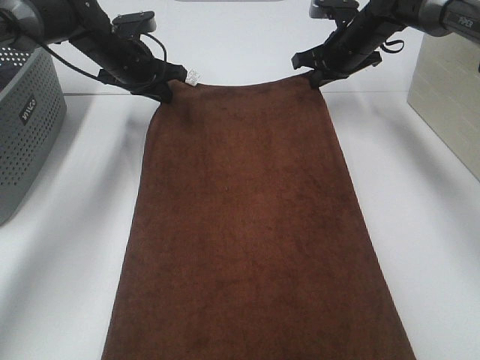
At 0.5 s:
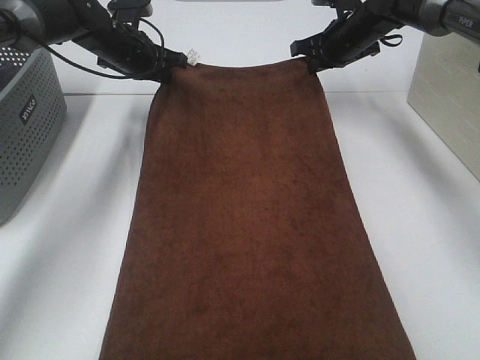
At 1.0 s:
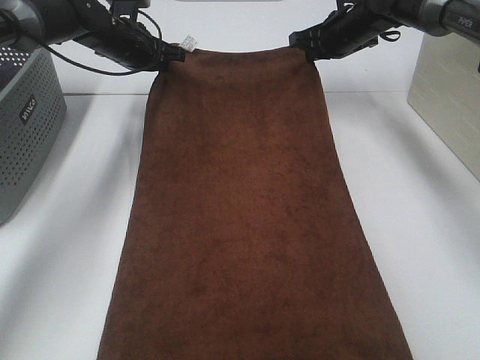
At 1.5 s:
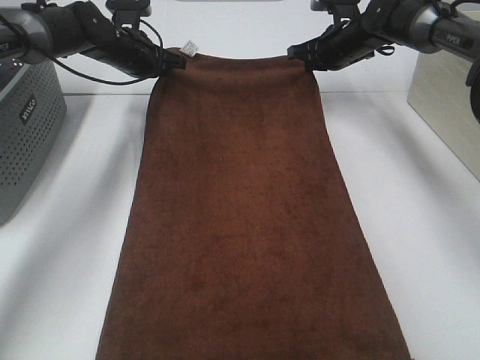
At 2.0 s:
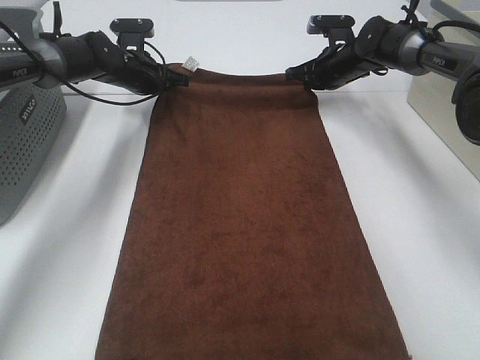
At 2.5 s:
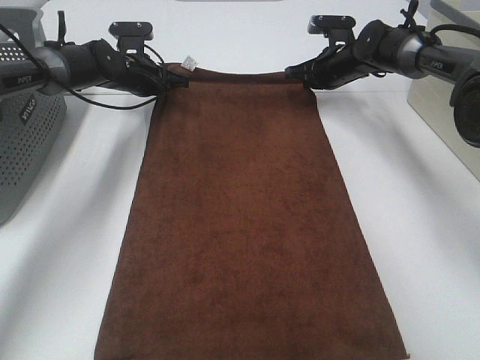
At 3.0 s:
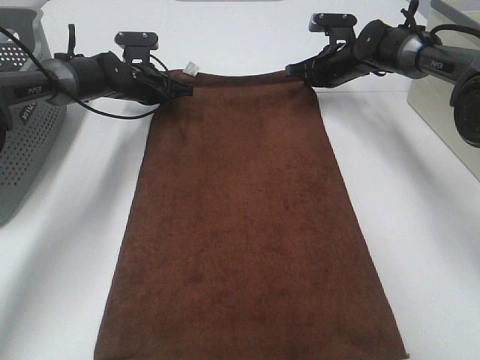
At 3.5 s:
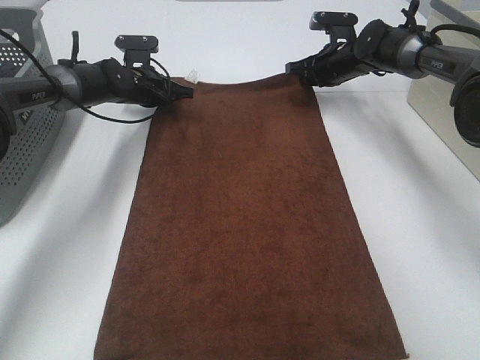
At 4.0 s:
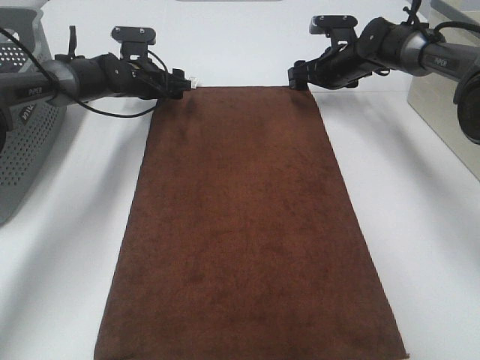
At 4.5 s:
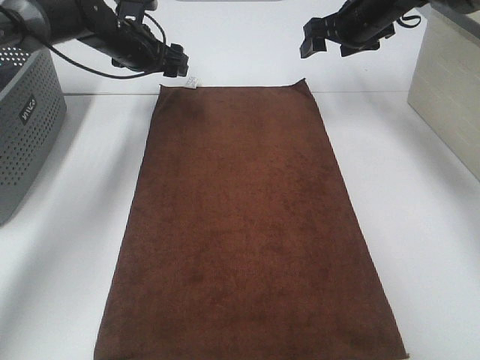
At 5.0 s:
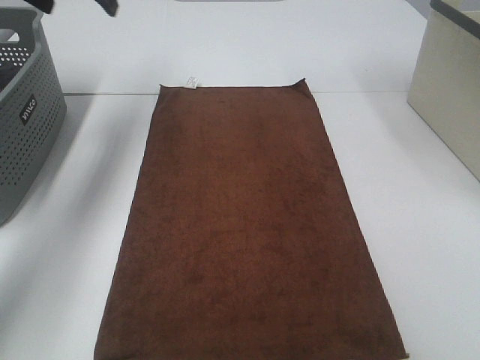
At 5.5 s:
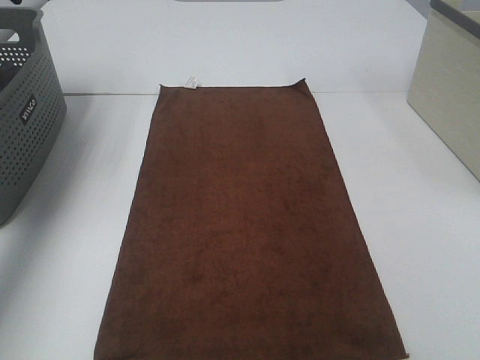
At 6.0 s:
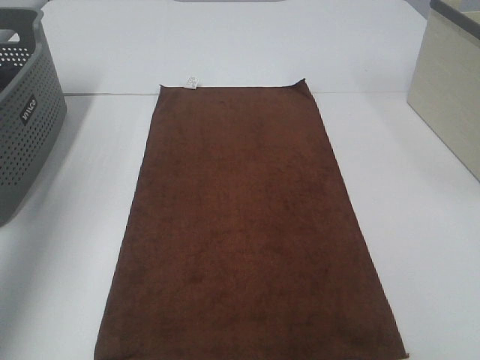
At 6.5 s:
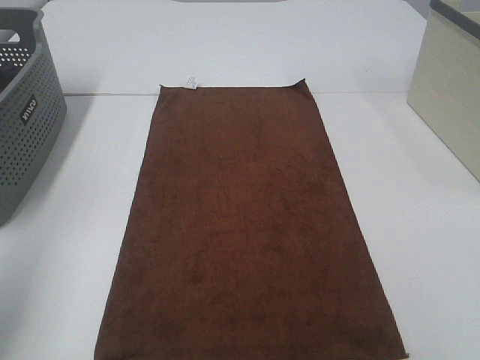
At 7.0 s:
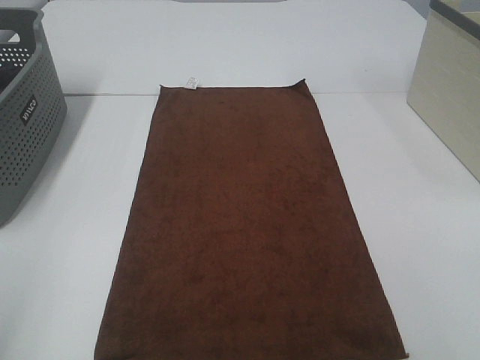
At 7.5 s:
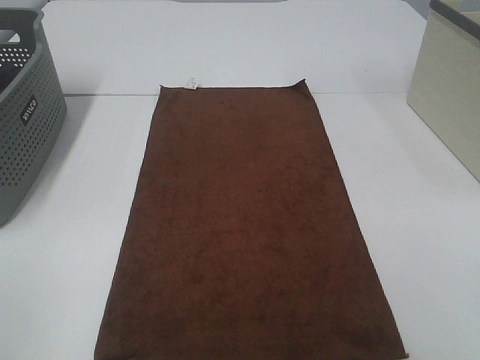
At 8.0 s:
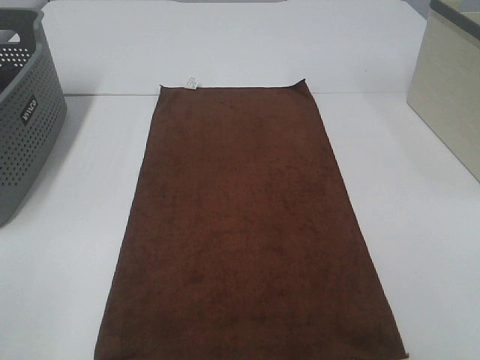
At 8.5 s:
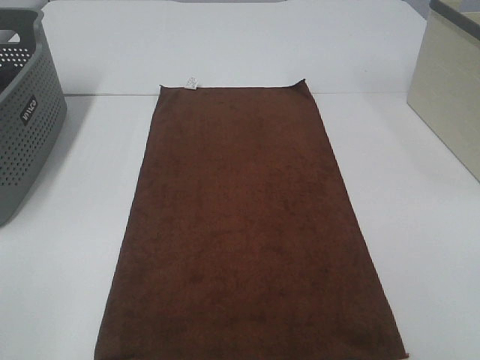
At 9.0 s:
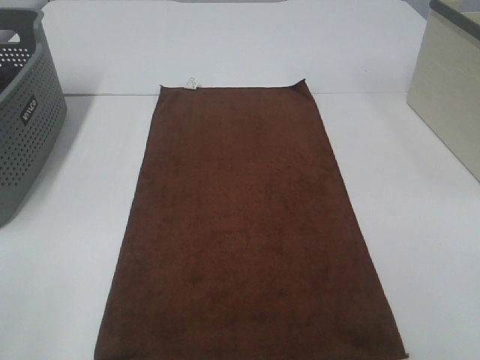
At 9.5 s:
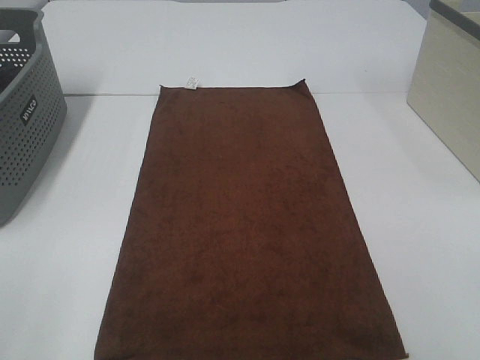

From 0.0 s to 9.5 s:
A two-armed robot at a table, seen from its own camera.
Task of the whole recording: Remove the towel and place it.
From 0.0 s to 2.0 s: The left gripper moves approximately 5 cm. The right gripper goes about 5 cm downward.
From 2.0 s to 4.0 s: The left gripper opens its fingers. The right gripper opens up.
From 4.0 s to 5.5 s: The left gripper travels upward, backward and to the left by roughly 35 cm, while the right gripper goes approximately 40 cm upward and backward.
From 5.5 s to 7.5 s: The left gripper is displaced backward by roughly 40 cm.

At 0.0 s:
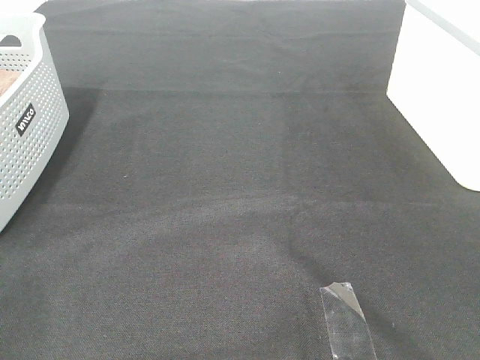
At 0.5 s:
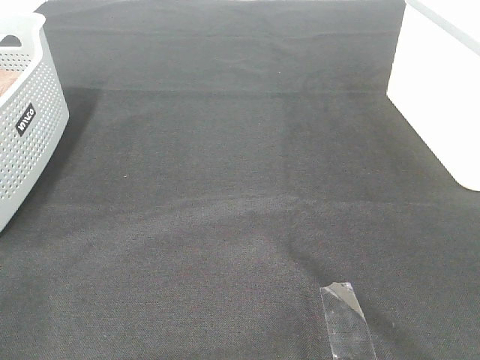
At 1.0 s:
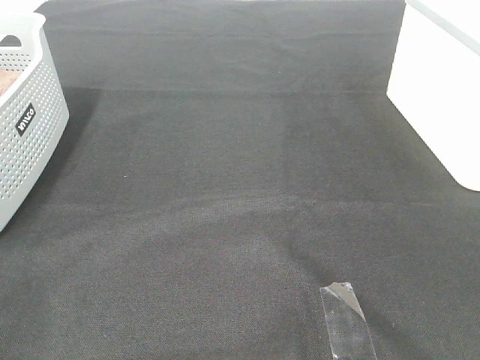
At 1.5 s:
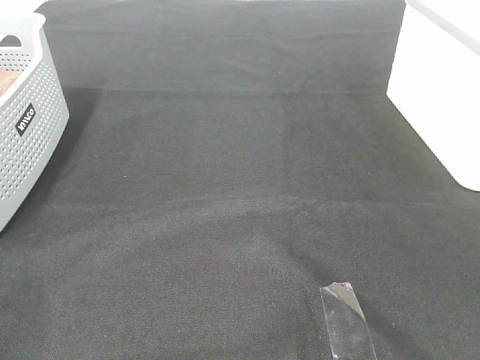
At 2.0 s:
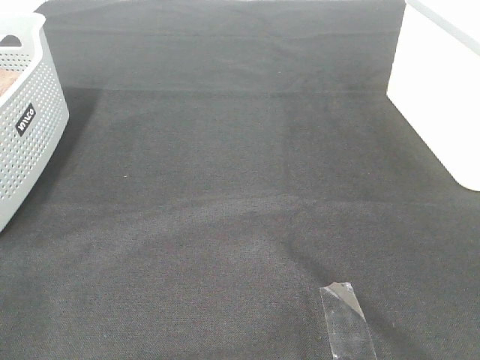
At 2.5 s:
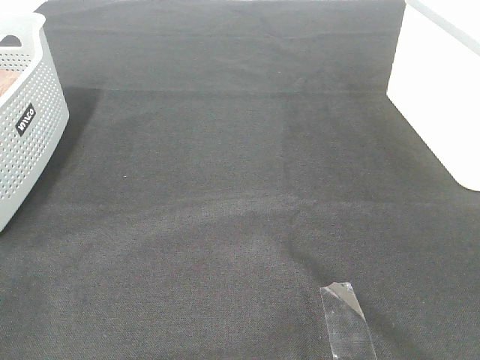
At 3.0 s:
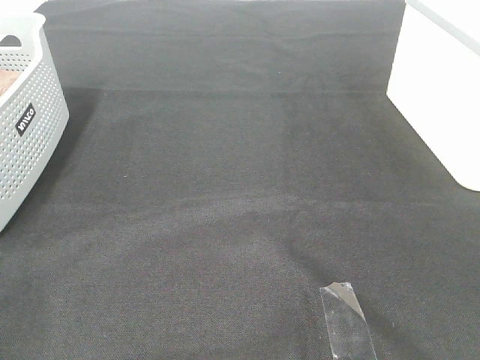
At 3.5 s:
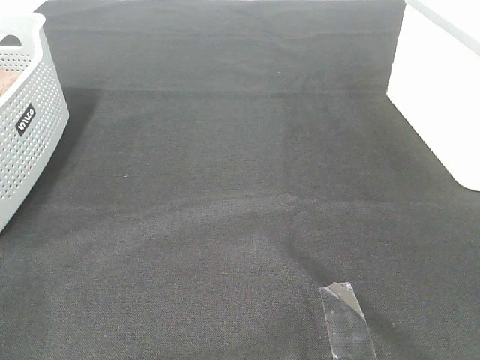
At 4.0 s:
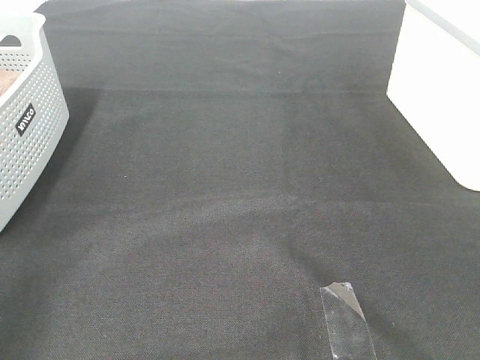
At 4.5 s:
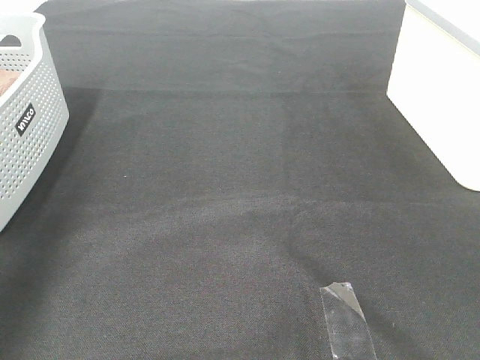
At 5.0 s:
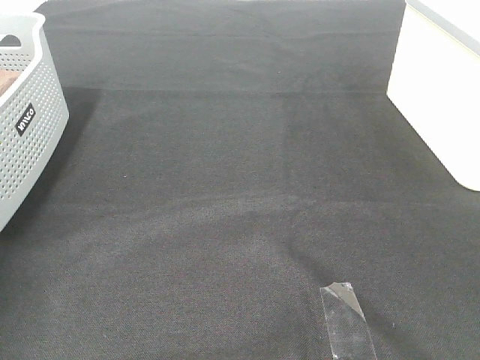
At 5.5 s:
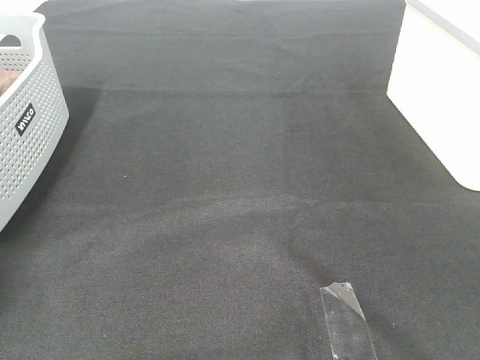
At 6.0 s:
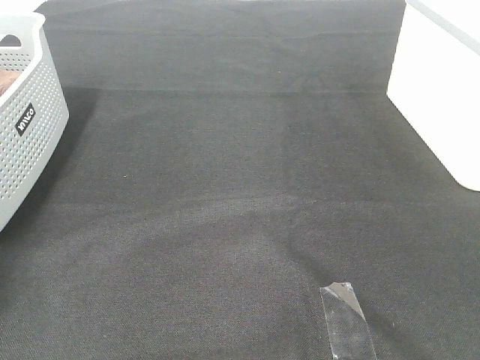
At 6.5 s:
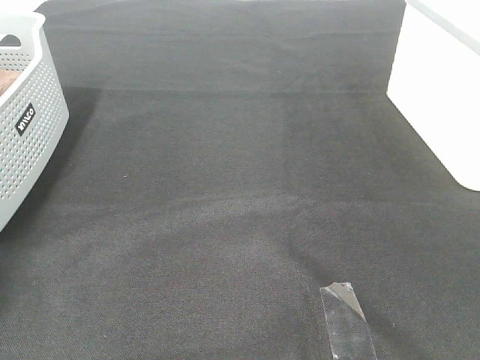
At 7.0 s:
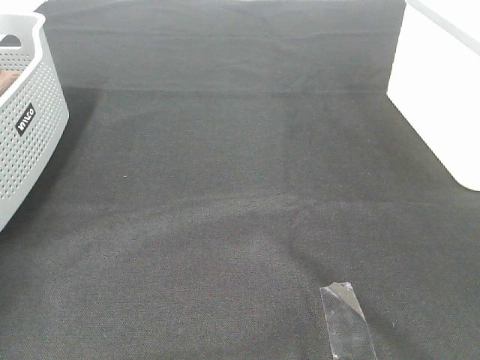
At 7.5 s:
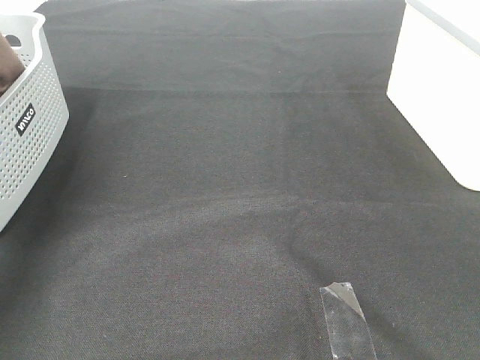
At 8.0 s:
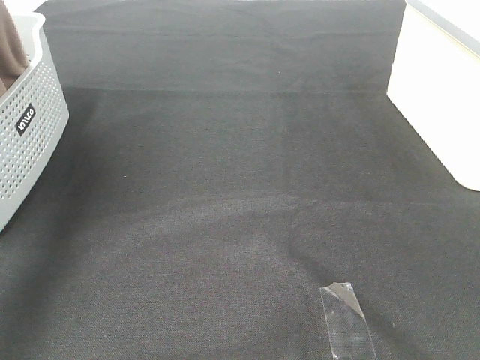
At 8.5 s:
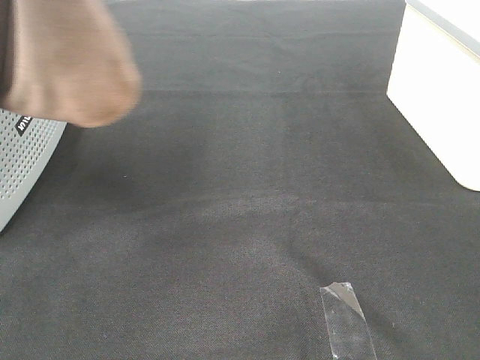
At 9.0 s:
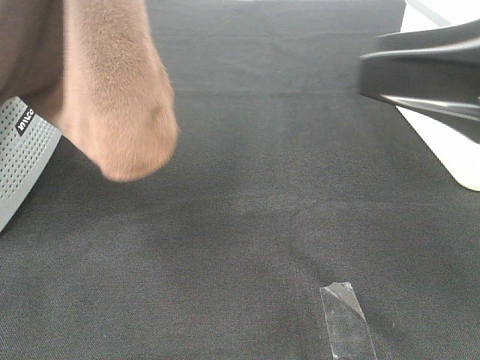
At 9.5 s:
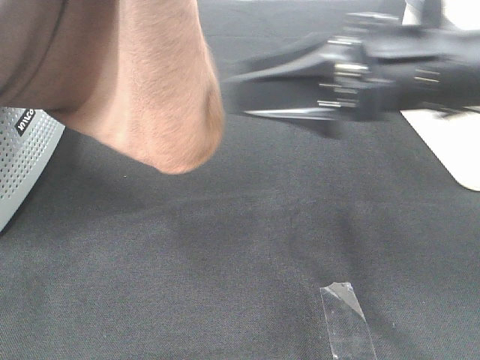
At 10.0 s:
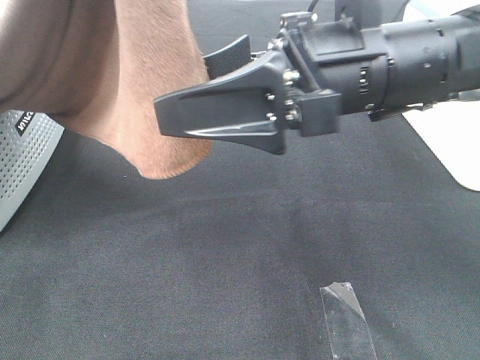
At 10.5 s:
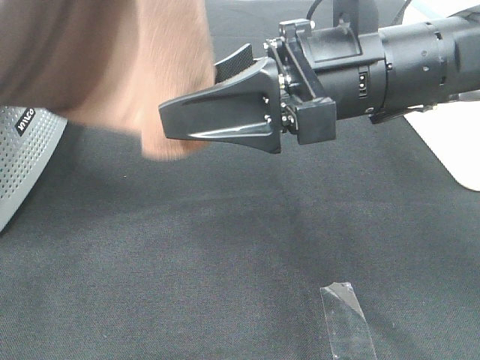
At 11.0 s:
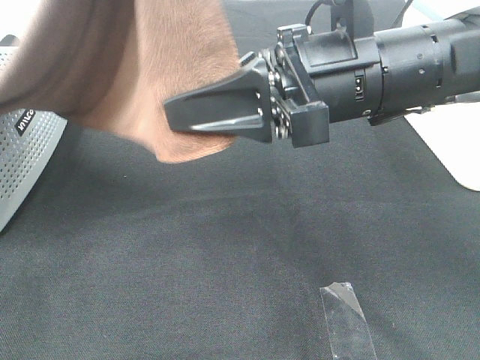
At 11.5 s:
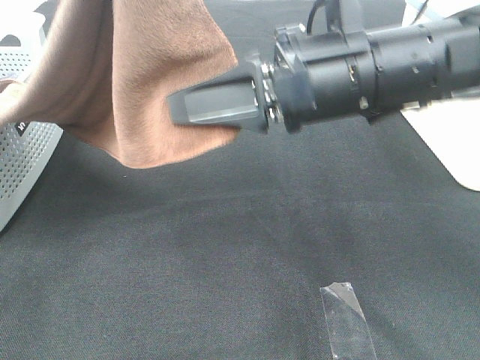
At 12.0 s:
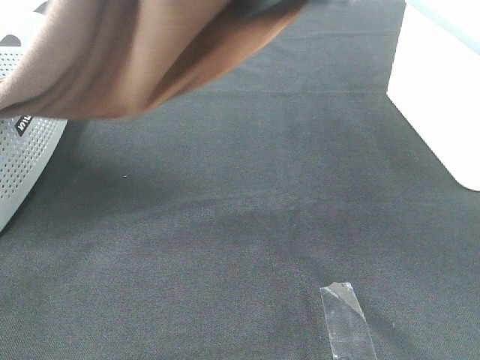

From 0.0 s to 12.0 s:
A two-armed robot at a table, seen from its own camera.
Task of the whole recording: Remove the towel and place it.
Step, from 8.0 s to 11.0 s: Right hand: grab a corner of the brown towel and straighten it.
From 0.0 s to 2.0 s: Both grippers stay about where they are.
From 4.0 s to 6.0 s: The left gripper shifts some 40 cm forward and downward, and closes its fingers.
From 6.0 s to 8.0 s: The left gripper moves upward, to the right and backward, roughly 35 cm.
From 8.0 s to 10.0 s: The right gripper moves forward and to the left, about 30 cm. Meanwhile the left gripper moves to the right and backward, some 20 cm.
From 10.0 s to 12.0 s: The right gripper shifts roughly 10 cm upward, and closes up.

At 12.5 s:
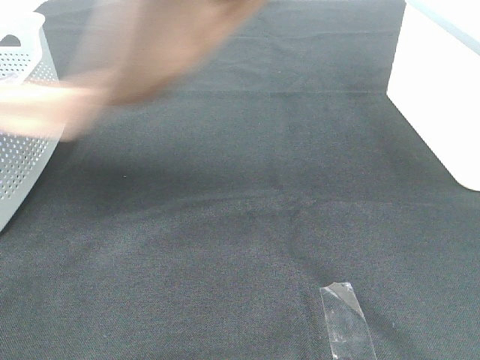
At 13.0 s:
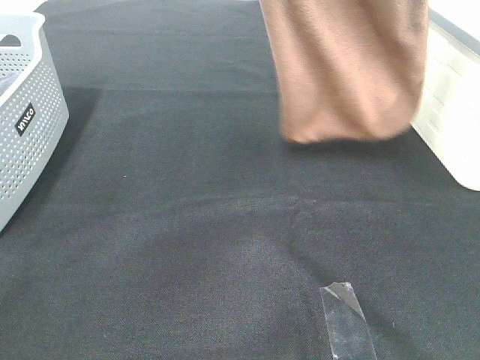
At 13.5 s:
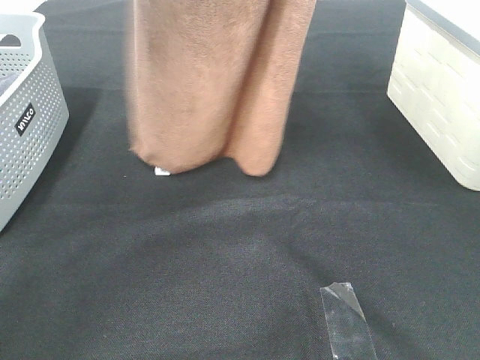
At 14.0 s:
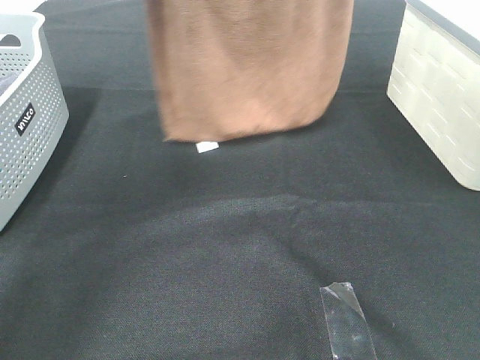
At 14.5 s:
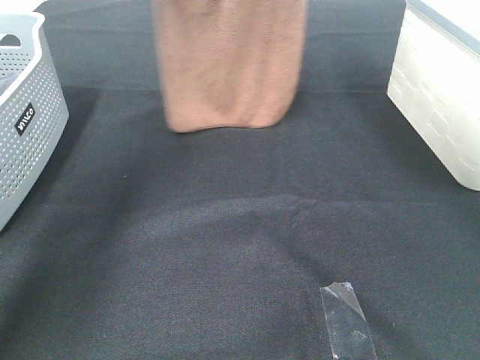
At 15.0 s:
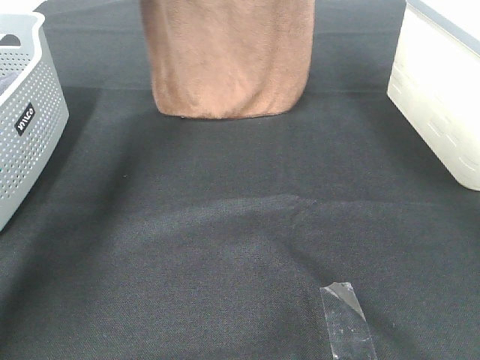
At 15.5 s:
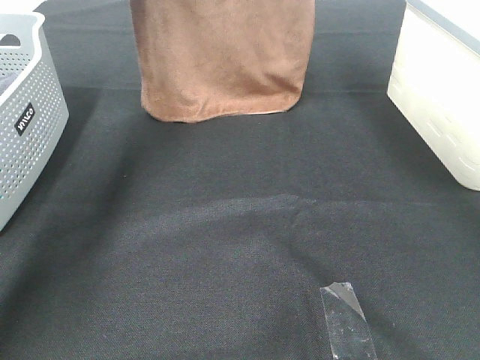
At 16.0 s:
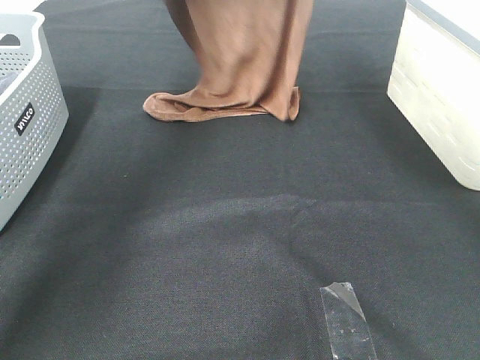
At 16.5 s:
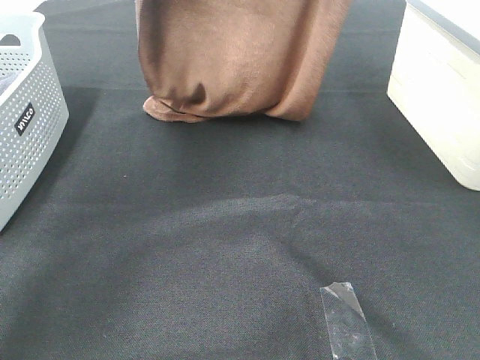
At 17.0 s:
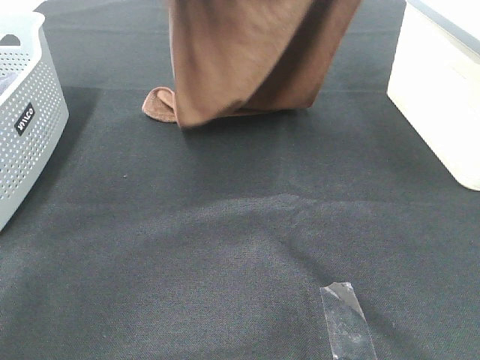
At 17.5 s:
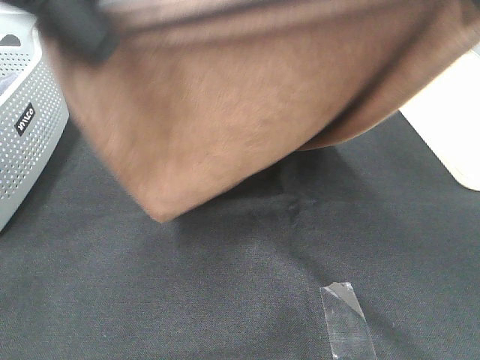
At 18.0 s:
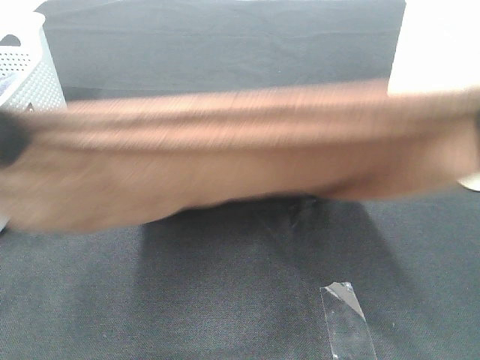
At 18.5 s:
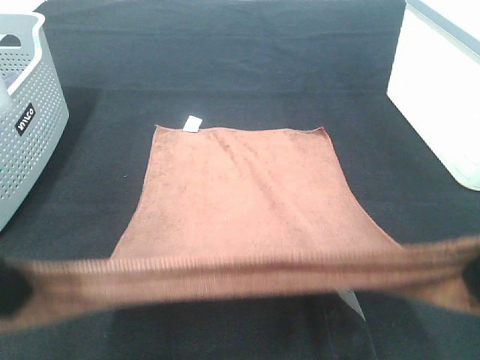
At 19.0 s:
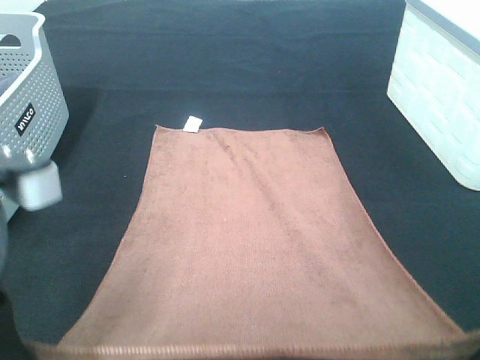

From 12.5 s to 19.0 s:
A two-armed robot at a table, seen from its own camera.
Task of the whole recording: Remove the towel and place it.
Step, from 12.5 s to 16.0 s: Left hand: spread the brown towel flat on the table.
Step, from 12.5 s to 16.0 s: Right hand: spread the brown towel flat on the table.
From 12.5 s to 14.5 s: The two grippers go about 20 cm forward.
From 14.5 s to 17.0 s: The two grippers go about 10 cm backward.
From 17.0 s to 19.0 s: The grippers both shift backward and downward by about 30 cm.
